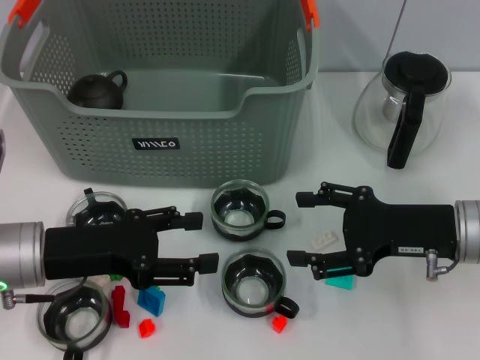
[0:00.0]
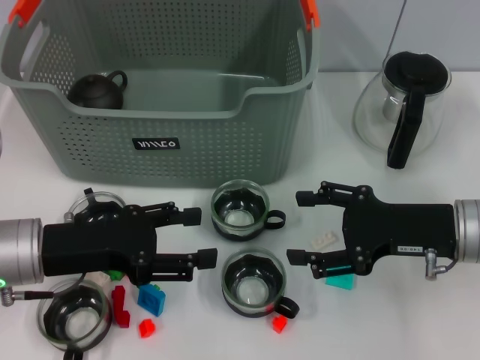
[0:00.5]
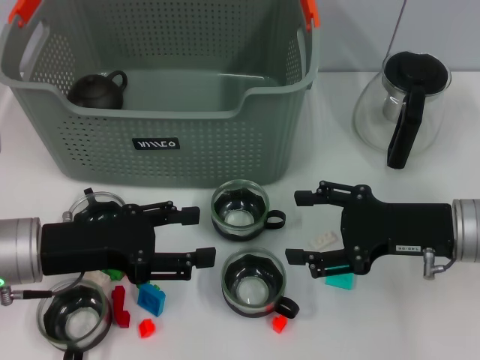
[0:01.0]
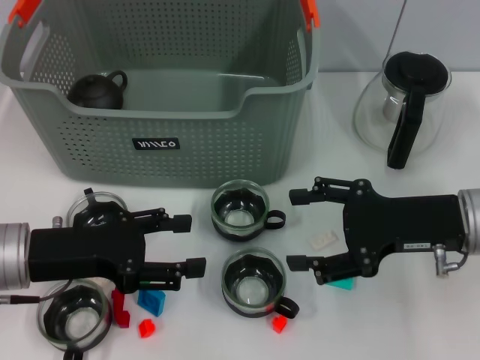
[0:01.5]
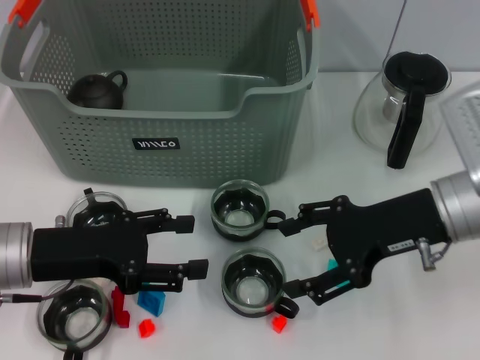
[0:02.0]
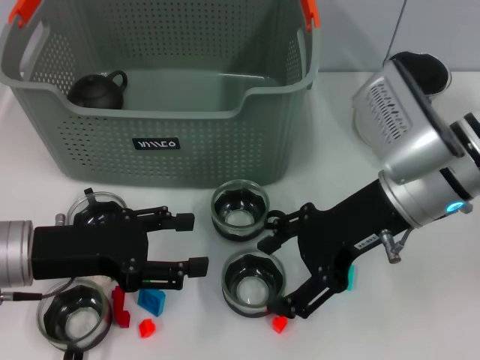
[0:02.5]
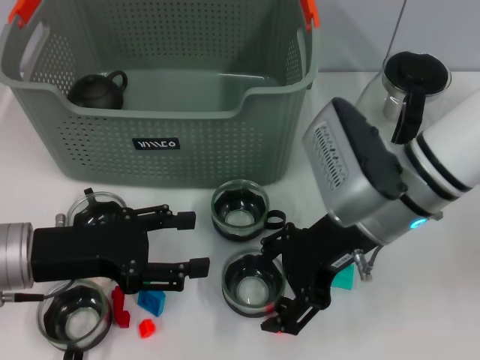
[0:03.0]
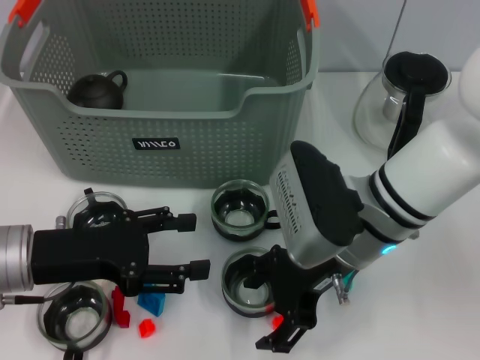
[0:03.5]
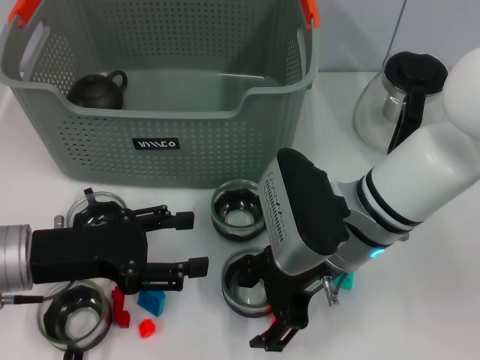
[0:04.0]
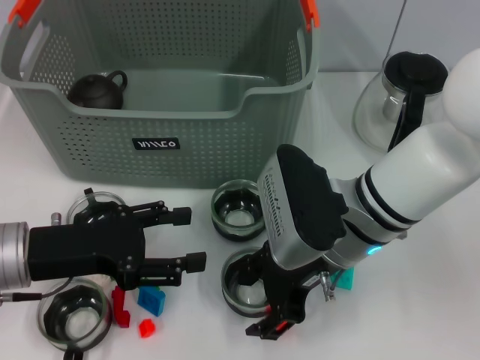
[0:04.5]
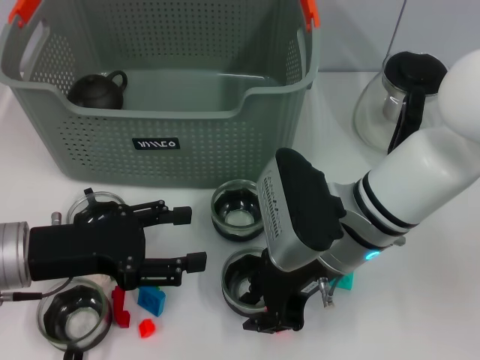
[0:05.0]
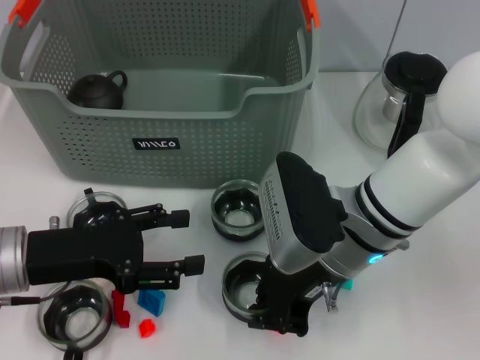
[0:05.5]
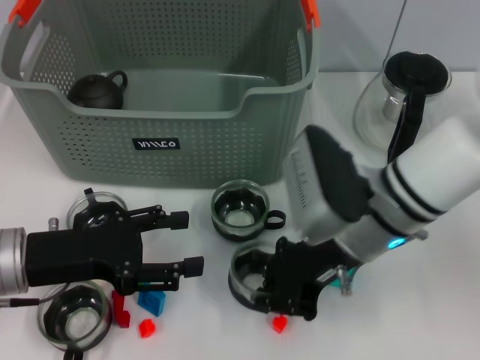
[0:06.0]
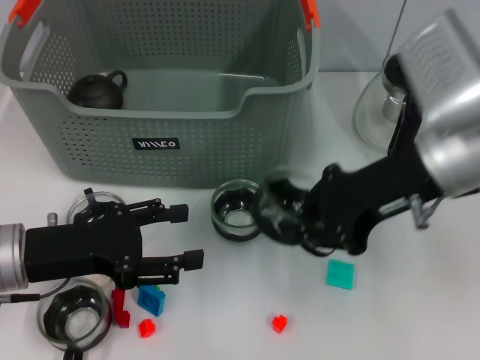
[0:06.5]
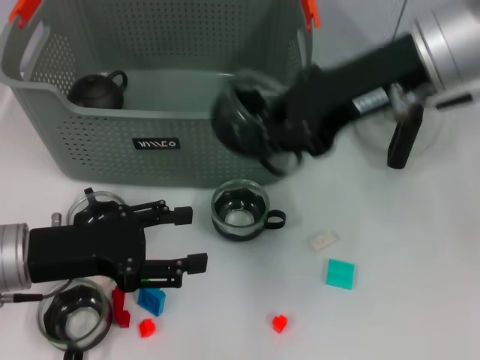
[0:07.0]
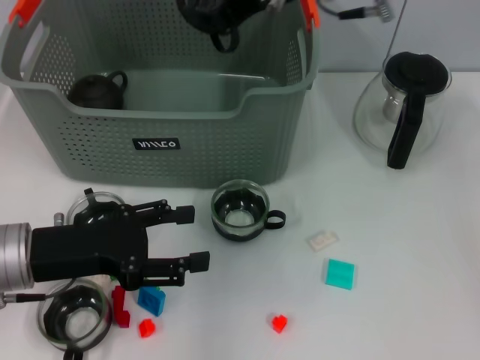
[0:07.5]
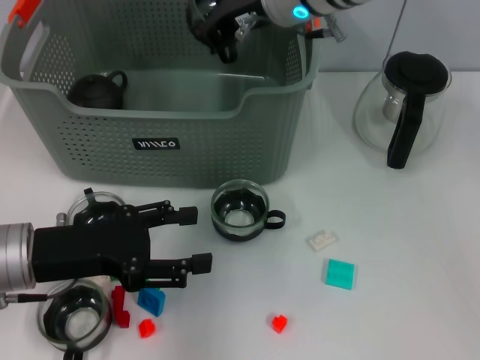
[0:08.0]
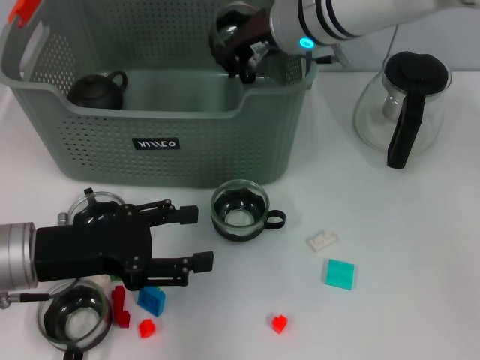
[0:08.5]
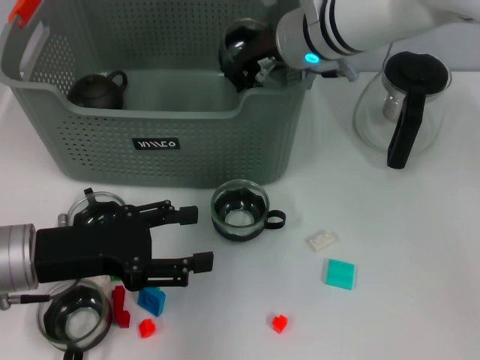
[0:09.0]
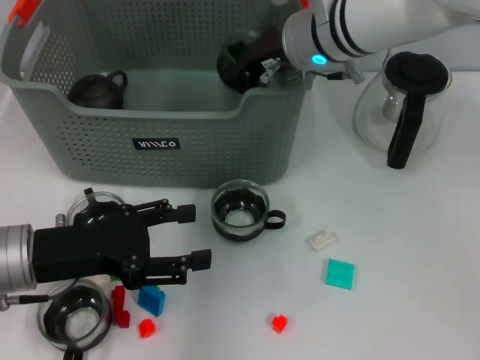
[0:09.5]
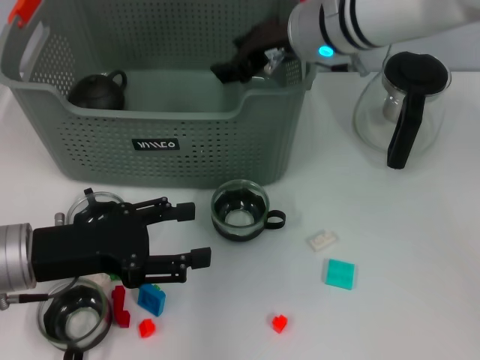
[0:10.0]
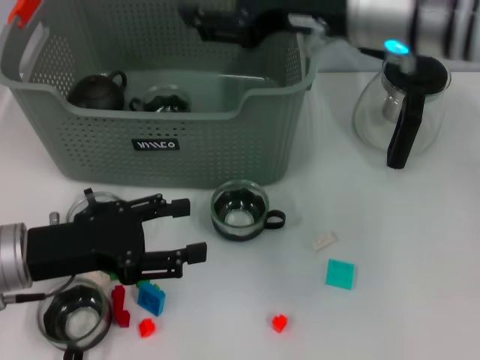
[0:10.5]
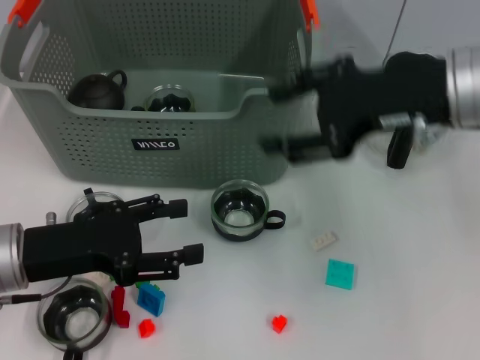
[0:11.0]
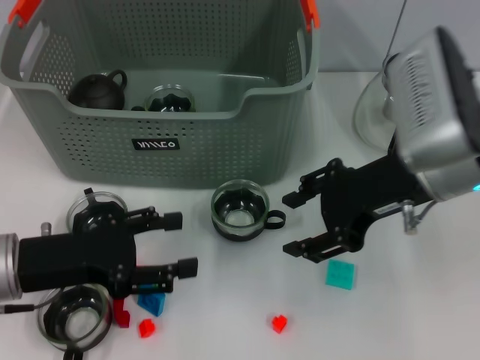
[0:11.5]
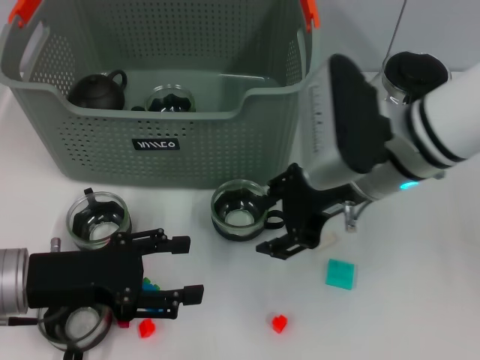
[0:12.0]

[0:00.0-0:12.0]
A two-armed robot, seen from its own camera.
Task of the whole recording: pick up the teacup on the table and place it into the storage bin, pick up the block on the table and place it into the storage bin.
Step, 0:00.0 to 0:05.0: Grasp the cup with right gripper.
Step, 0:05.5 to 0:09.5: Place the cup in the storage box with right gripper.
0:00.0 to 0:02.0: The right gripper changes place by some 5 cm.
0:02.0 to 0:04.0: The right gripper is displaced to the left by some 10 cm.
0:04.0 to 0:06.0: The right gripper closes up.
0:06.0 to 0:08.0: The right gripper travels forward, upward and to the left by approximately 20 cm.
0:08.0 to 0:10.0: The right gripper opens its fingers.
0:10.0 to 0:12.0: The right gripper is displaced backward by about 10 cm.

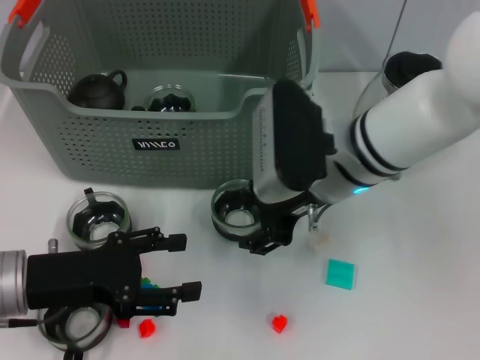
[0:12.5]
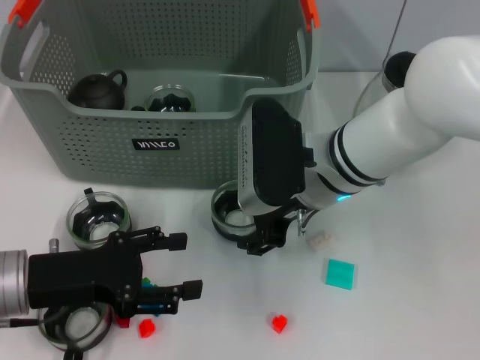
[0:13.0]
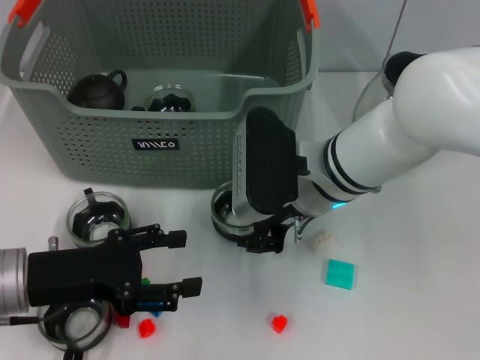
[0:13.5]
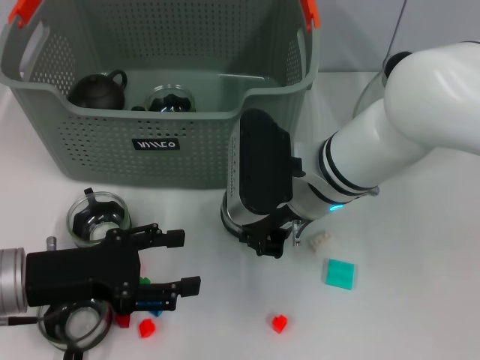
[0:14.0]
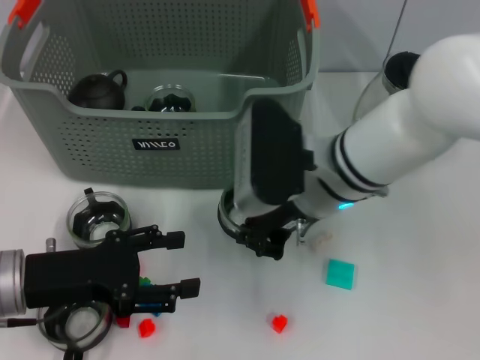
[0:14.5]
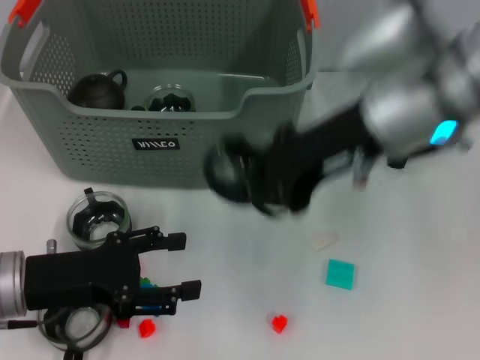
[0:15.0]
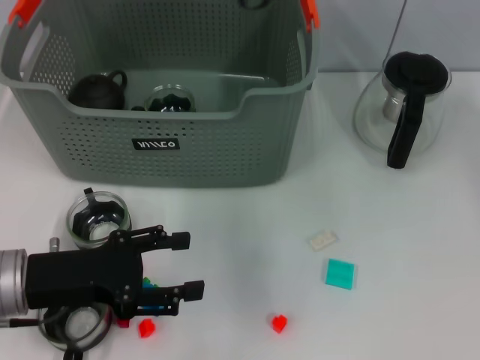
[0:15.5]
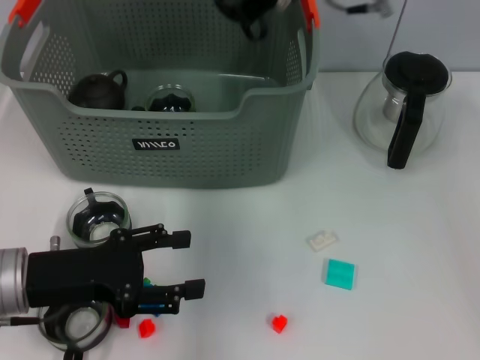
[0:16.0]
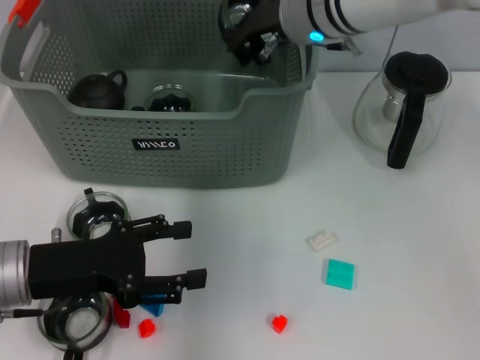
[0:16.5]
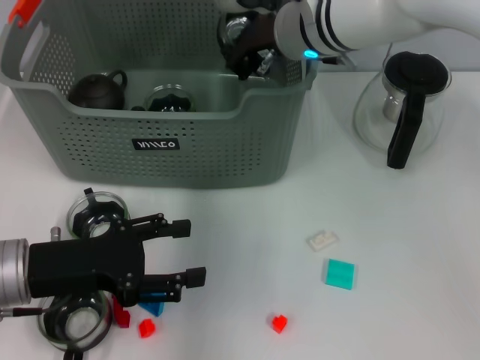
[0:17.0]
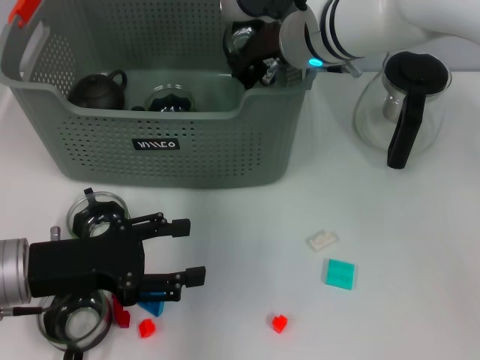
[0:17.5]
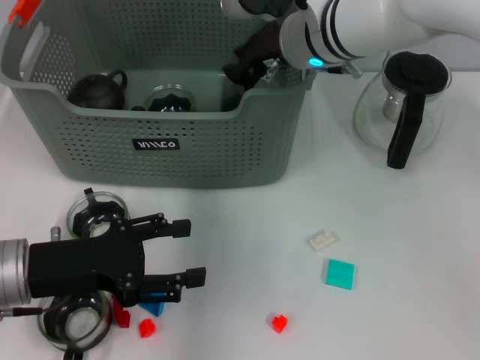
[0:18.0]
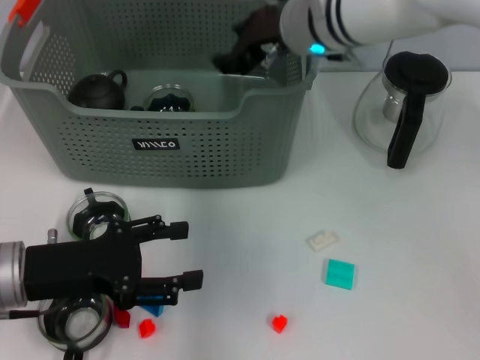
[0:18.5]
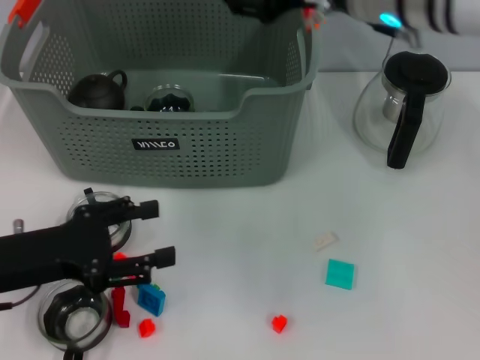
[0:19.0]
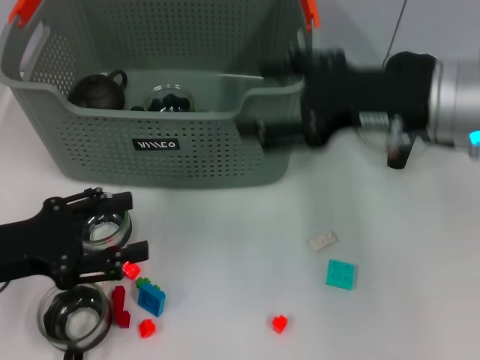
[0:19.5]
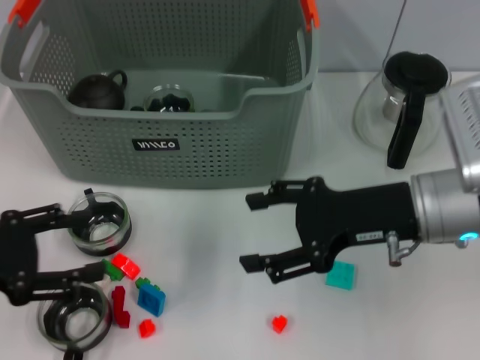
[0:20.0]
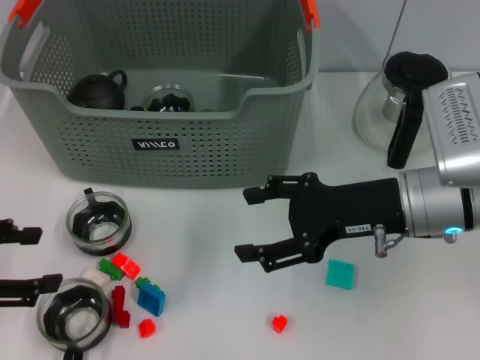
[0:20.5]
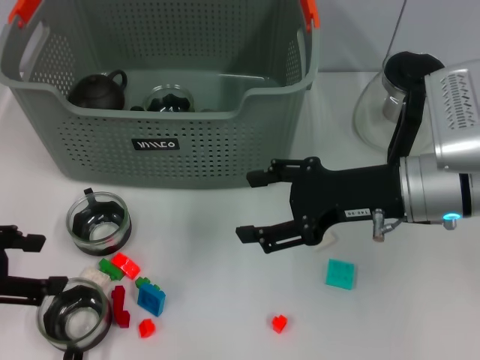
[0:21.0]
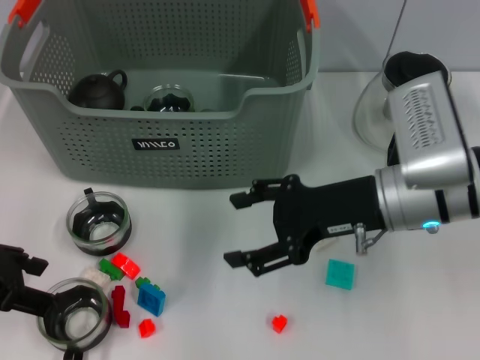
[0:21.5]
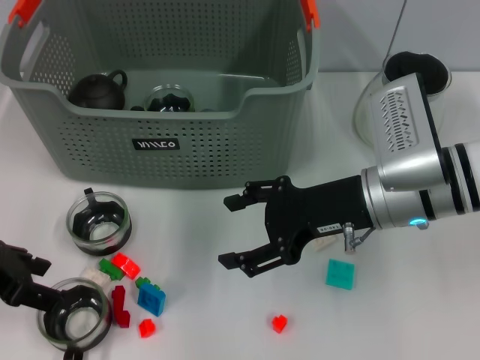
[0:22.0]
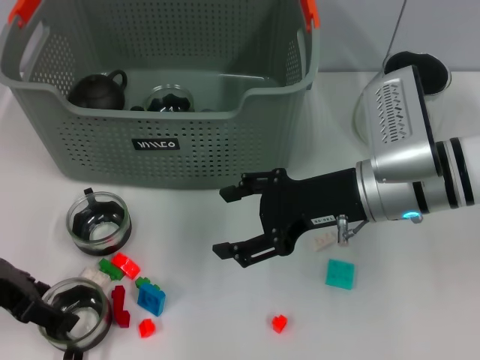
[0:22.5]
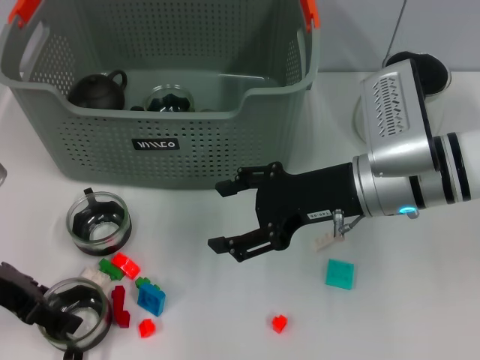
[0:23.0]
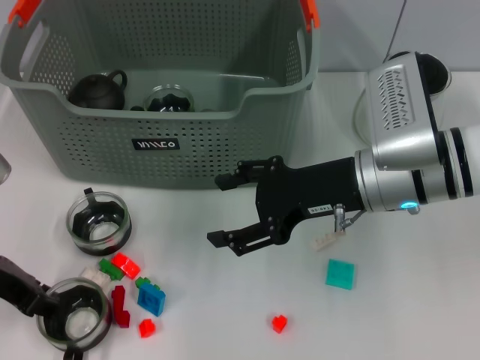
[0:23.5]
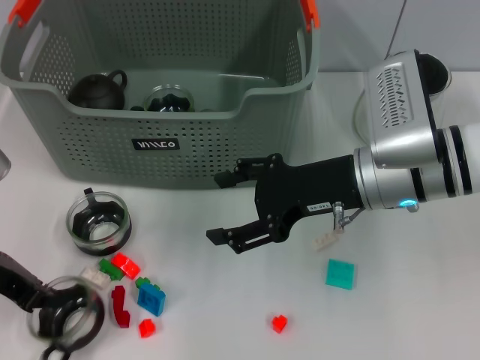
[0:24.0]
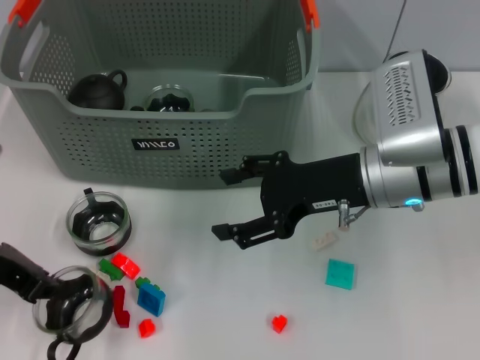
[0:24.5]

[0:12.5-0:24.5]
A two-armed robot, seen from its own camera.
Task of the whole recording: pick up the teacup on the table and place it into the storage bin, pick up the block on the table and place it into the storage bin.
Step, 0:14.5 to 0:18.0: Place the cup in the storage box with right gripper.
Step, 0:18.5 to 0:23.5: Grasp the cup with left gripper.
0:12.5 to 0:14.5: The right gripper closes its fingers.
0:14.5 to 0:16.5: The right gripper goes approximately 15 cm forward and upward.
0:16.5 to 0:18.5: The right gripper opens its fingers.
0:18.5 to 0:20.5: The left gripper is displaced to the left and upward by some 10 cm; the right gripper shifts some 20 cm backward, to the right and downward.
0:20.5 to 0:22.5: The left gripper is displaced forward by about 5 cm.
0:22.5 to 0:24.5: The left gripper closes its fingers.

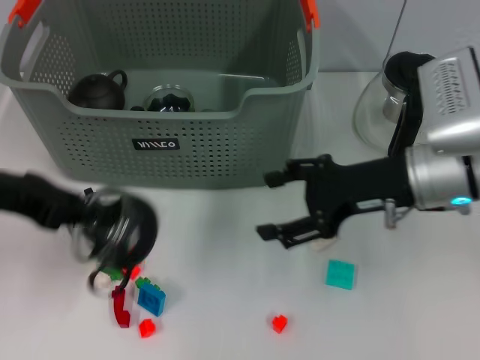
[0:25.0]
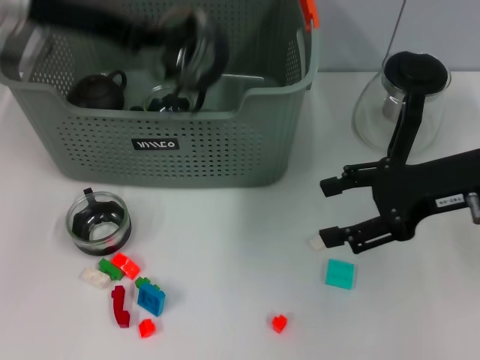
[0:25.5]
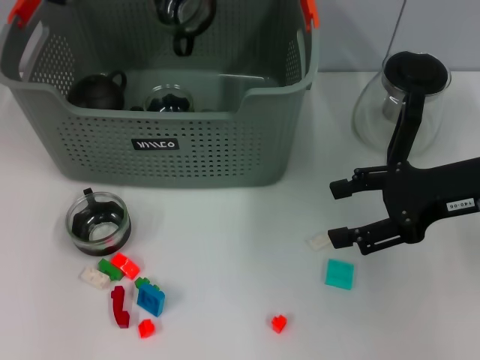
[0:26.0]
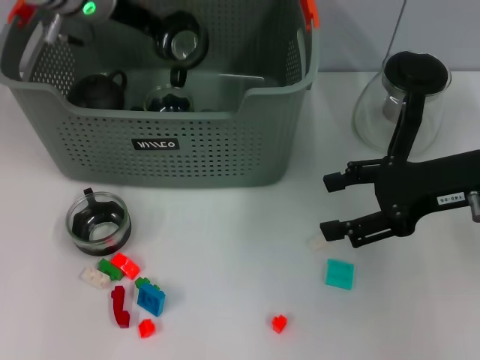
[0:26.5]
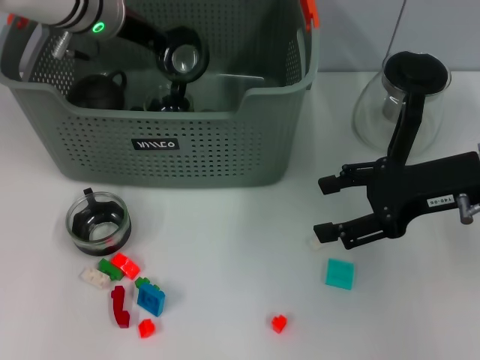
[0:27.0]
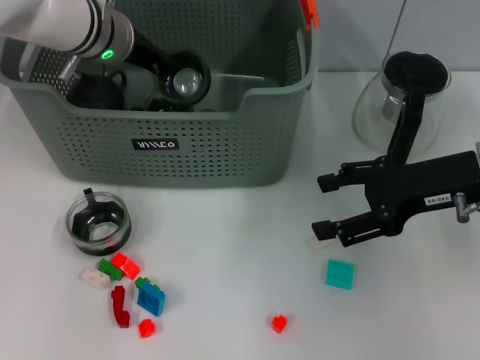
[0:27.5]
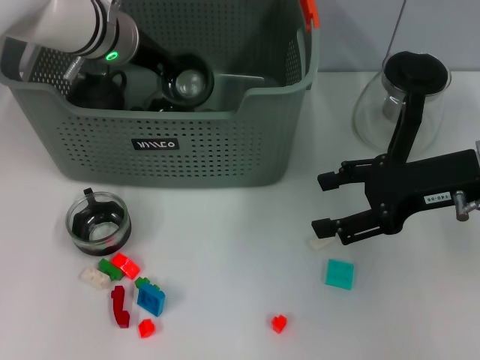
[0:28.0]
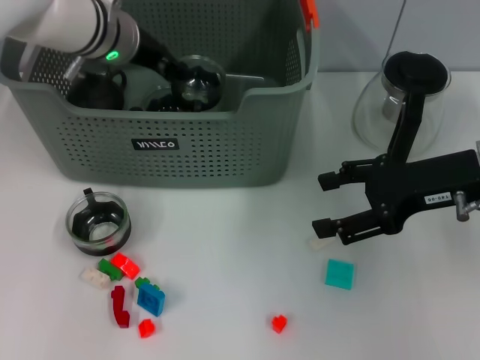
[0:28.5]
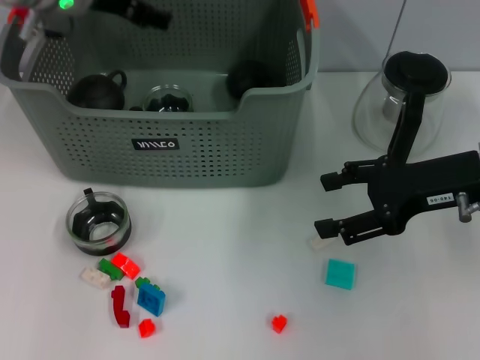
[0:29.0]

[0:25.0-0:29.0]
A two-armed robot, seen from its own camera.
Task of the whole recording: pick up the teacup on the table and place it into the storage bin, pick up the block on the table and place it into the storage bin.
Step, 0:25.0 to 0:28.5: Place the cup in the storage box with left gripper.
0:25.0 to 0:27.0: The right gripper goes roughly 5 cm to the right. The left gripper goes some 20 cm forward and to the right.
0:27.0 to 0:29.0: The left gripper changes place by about 5 cm, and opens up.
